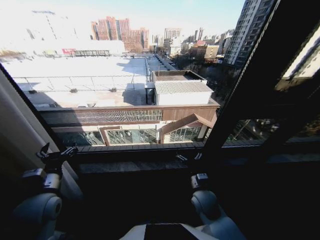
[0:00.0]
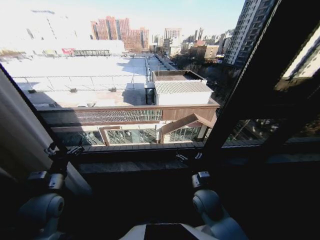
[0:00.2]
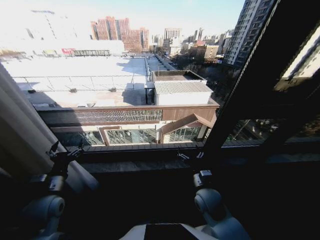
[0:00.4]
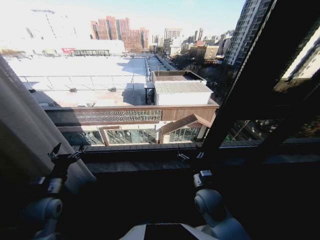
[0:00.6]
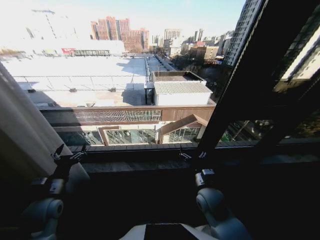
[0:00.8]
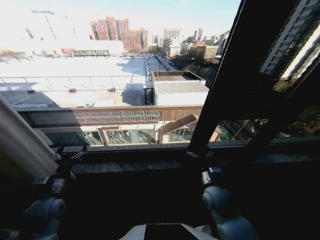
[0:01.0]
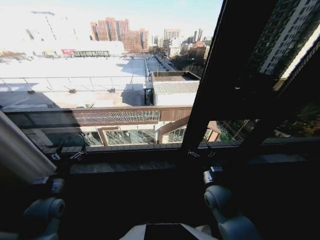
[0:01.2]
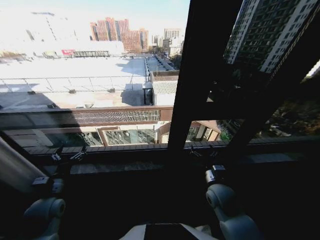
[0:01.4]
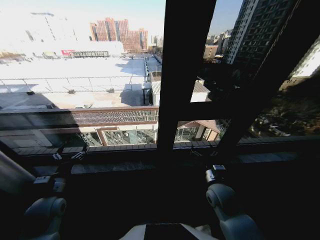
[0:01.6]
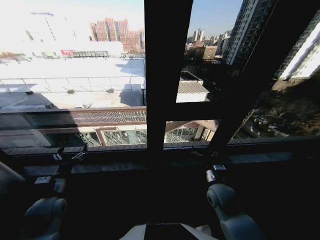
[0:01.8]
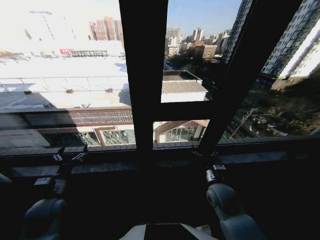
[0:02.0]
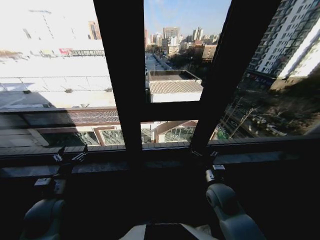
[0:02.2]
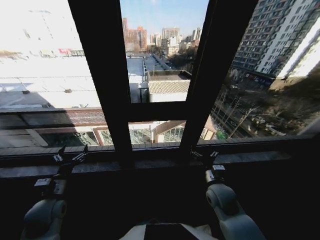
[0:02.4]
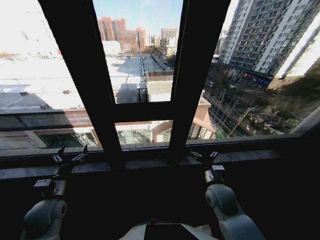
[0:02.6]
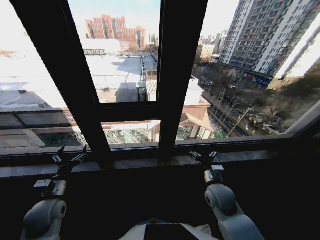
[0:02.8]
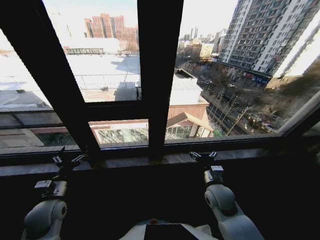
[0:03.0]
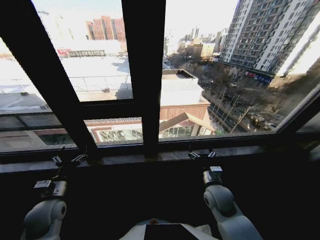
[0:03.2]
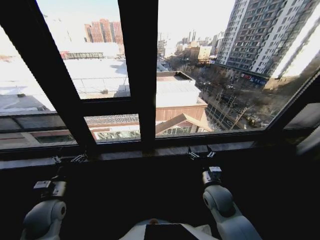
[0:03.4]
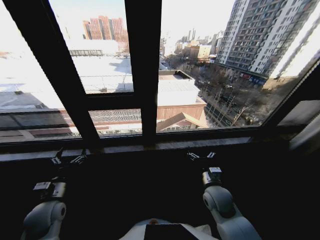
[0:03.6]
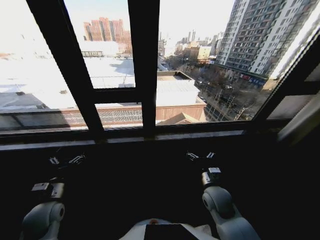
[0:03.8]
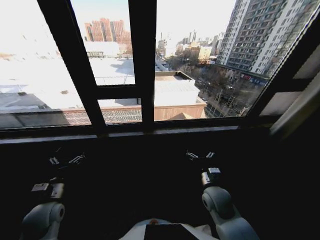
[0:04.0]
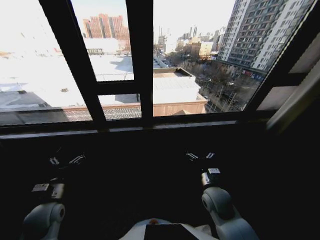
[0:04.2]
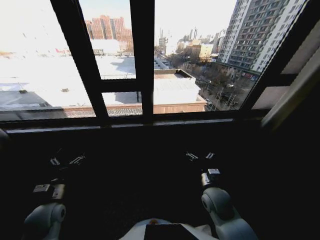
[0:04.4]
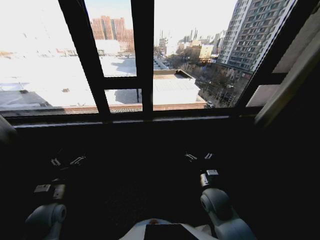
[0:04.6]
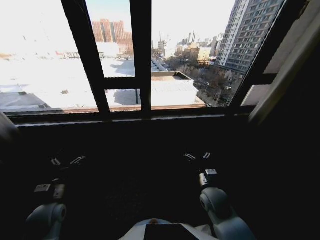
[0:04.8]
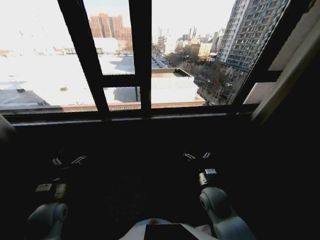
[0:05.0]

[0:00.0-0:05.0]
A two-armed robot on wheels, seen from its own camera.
Task of the whole recording: Open the curtains by pulling them apart, changing their state from closed to fully open.
0:00.0 to 0:01.6: The left gripper goes about 5 cm downward, while the right gripper is displaced to the right by some 5 cm.

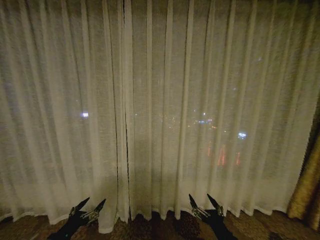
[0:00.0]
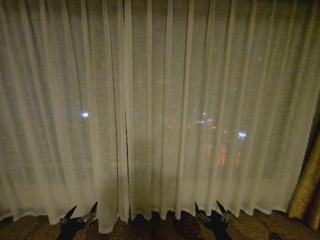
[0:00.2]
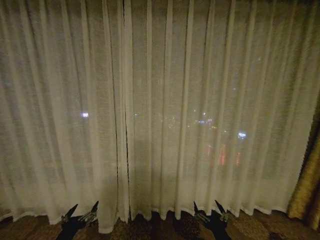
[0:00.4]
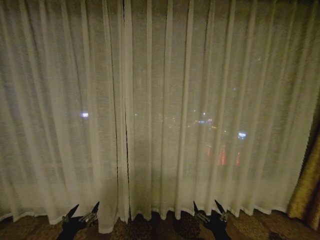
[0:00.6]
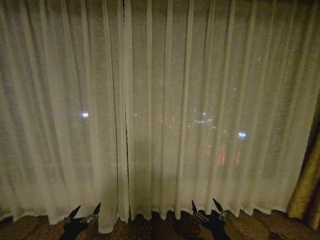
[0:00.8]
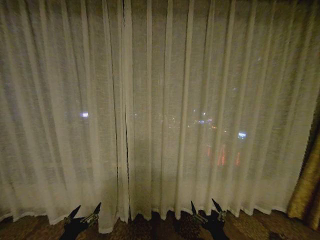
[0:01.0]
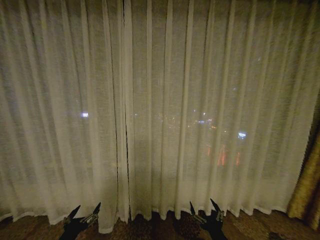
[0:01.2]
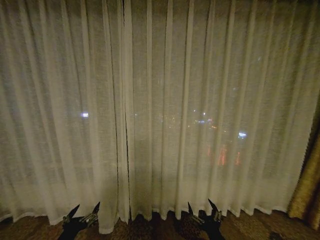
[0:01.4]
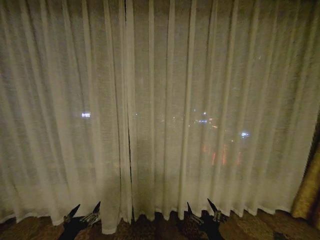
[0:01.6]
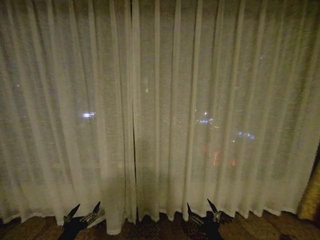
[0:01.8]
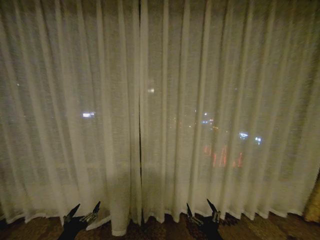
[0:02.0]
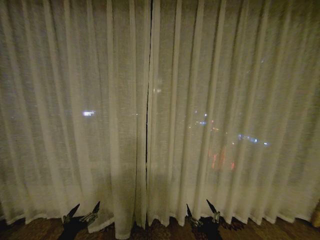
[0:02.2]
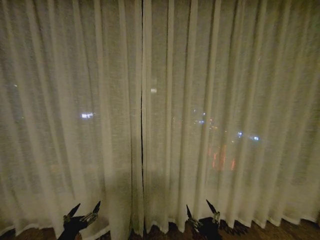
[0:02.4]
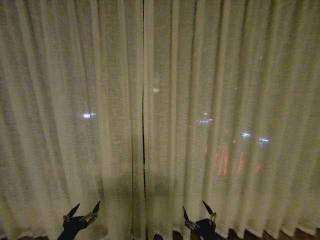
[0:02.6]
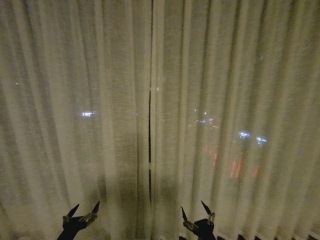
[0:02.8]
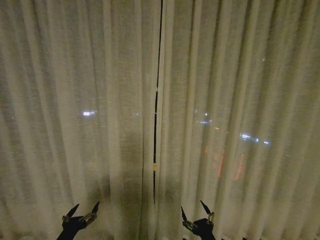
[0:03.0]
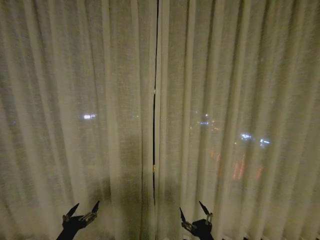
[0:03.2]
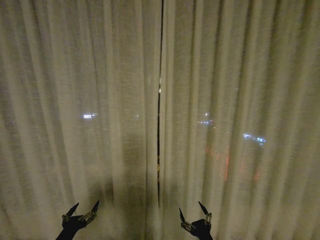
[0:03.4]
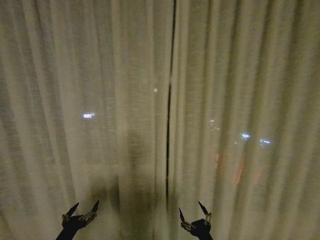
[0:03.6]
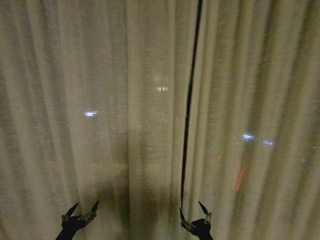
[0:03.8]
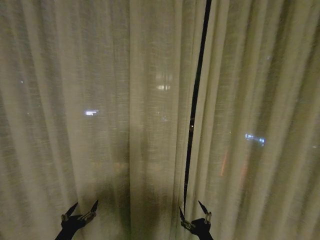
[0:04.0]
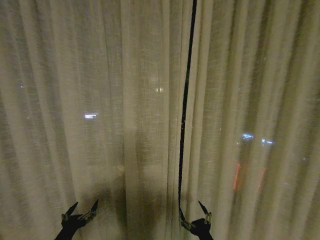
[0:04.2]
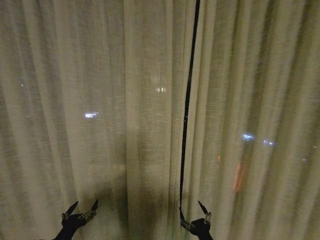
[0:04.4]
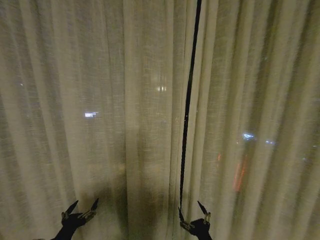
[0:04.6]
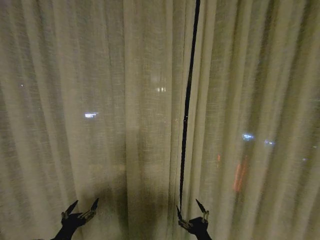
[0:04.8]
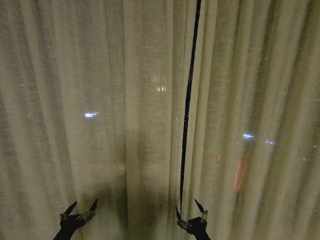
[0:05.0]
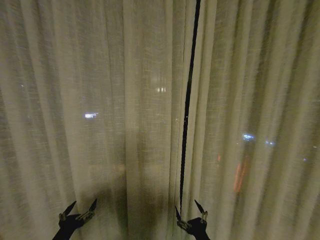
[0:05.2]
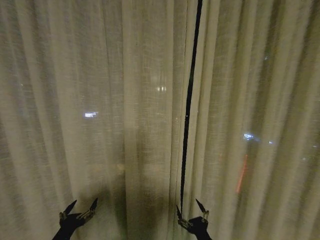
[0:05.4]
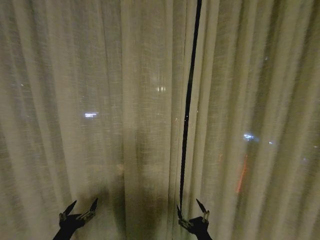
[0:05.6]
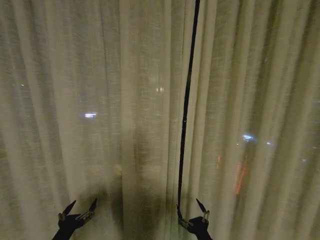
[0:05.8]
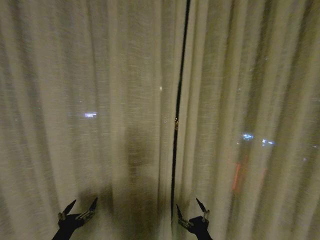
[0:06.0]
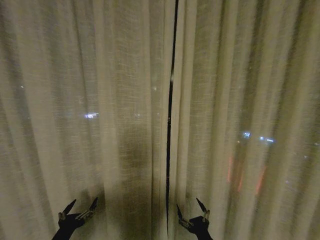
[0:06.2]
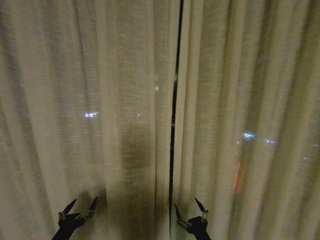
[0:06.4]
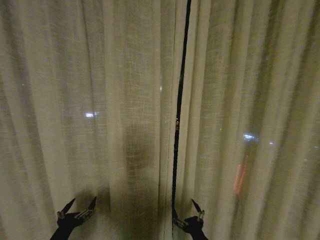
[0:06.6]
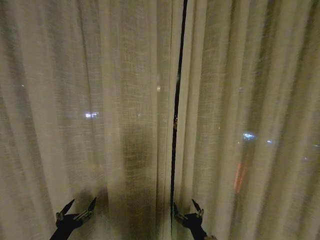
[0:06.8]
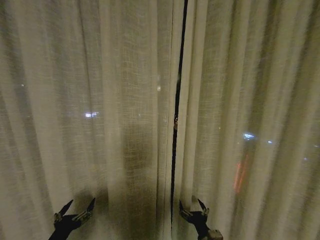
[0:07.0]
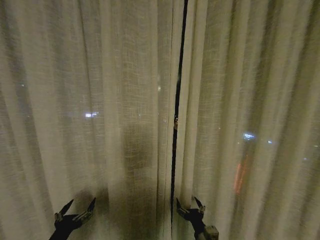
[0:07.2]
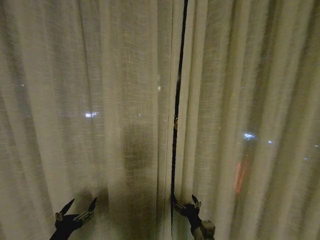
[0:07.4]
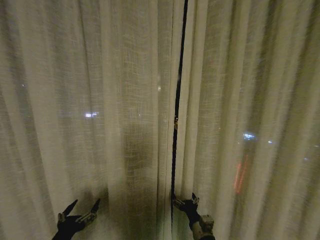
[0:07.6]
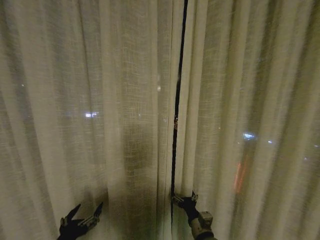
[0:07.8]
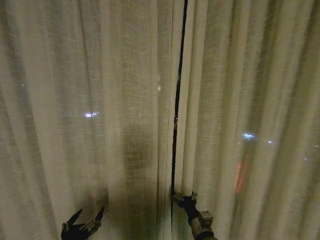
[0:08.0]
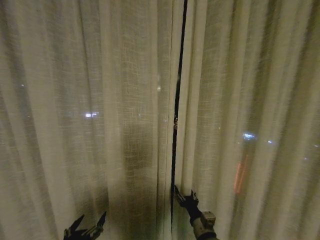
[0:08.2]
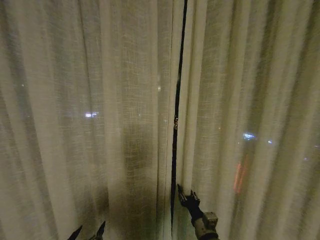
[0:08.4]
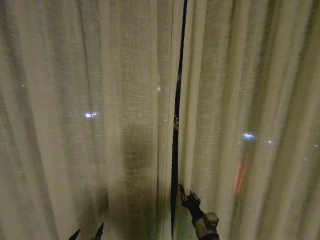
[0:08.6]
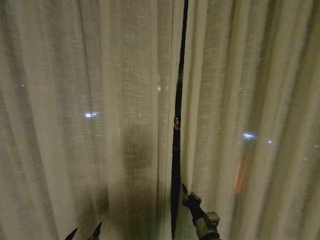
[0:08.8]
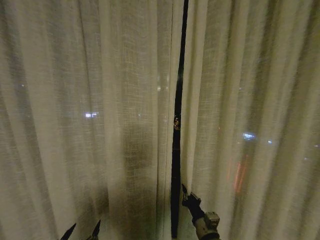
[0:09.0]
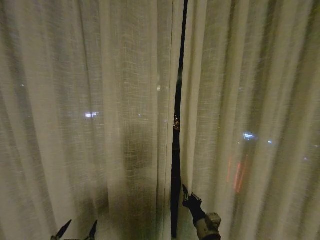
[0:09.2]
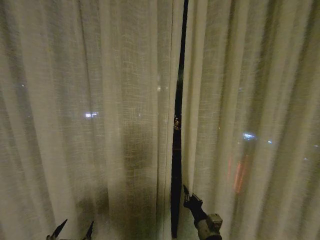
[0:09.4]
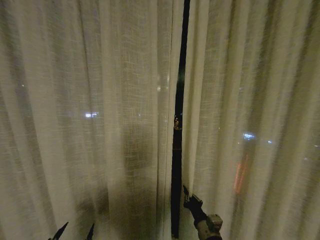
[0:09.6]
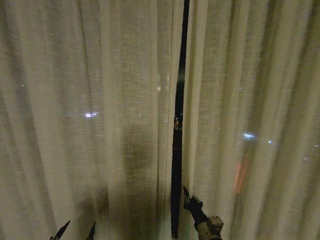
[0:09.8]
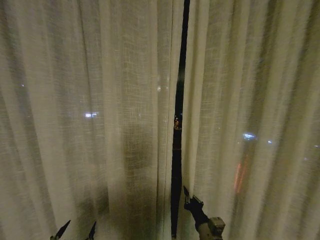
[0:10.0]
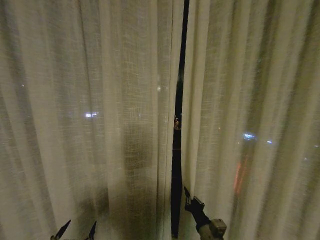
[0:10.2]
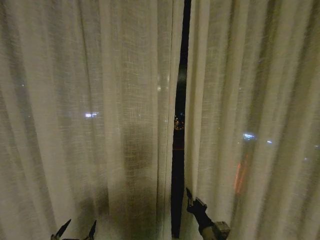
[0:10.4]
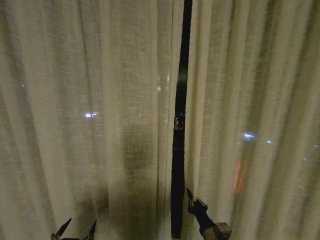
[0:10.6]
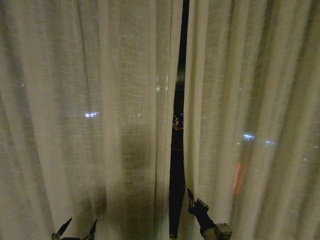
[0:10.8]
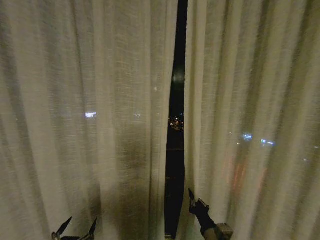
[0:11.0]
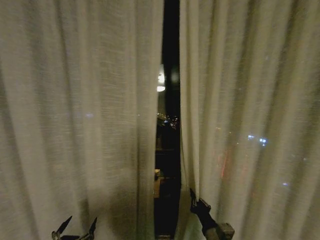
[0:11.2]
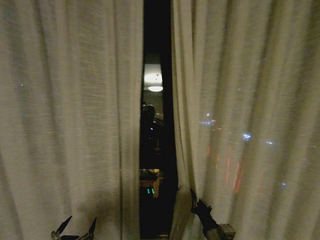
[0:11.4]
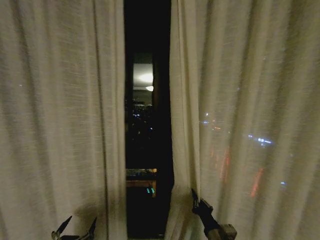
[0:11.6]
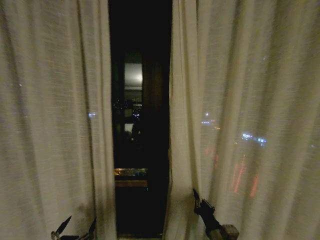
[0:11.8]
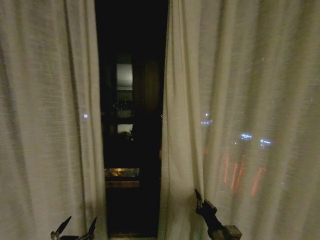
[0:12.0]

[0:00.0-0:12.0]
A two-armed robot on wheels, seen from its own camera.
Task of the whole recording: Open the curtains by pulling them apart, changing their state from closed to fully open.
0:03.0 to 0:04.4: The two grippers keep their place.
0:04.4 to 0:06.0: There are only small adjustments of the grippers.
0:06.0 to 0:07.6: The left gripper changes place by approximately 5 cm; the right gripper is displaced forward by approximately 10 cm.
0:07.6 to 0:09.0: The left gripper ends up some 5 cm from where it was; the right gripper closes.
0:09.0 to 0:10.4: The grippers make only small movements.

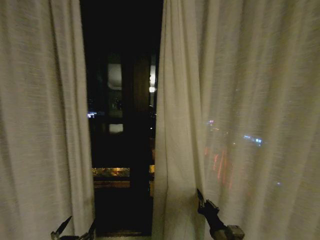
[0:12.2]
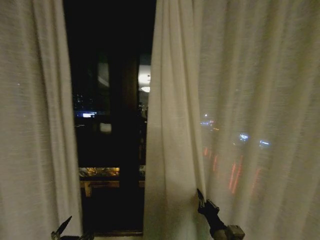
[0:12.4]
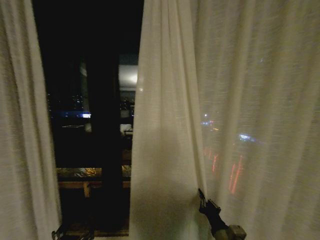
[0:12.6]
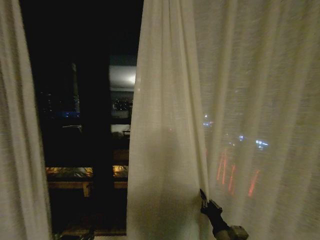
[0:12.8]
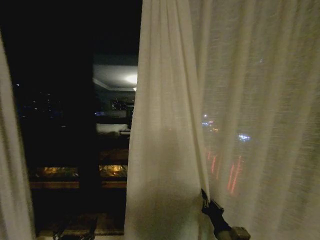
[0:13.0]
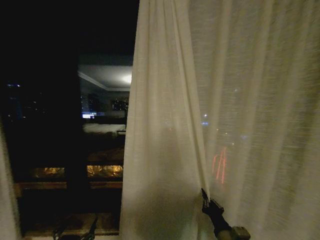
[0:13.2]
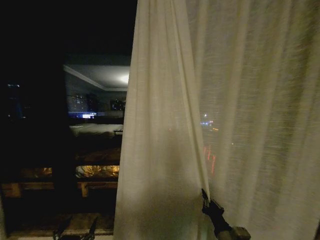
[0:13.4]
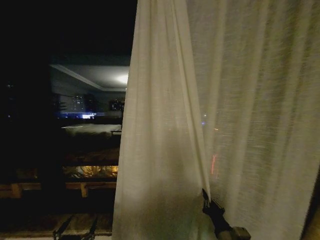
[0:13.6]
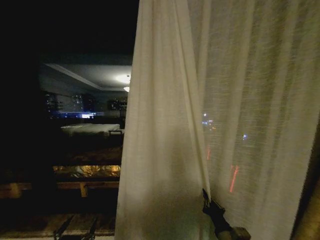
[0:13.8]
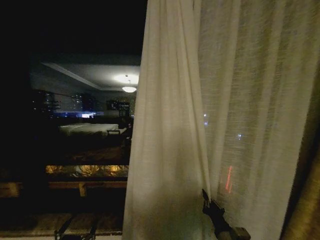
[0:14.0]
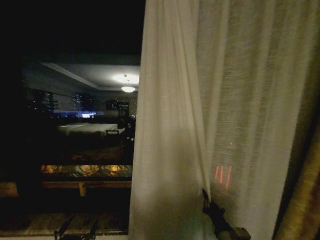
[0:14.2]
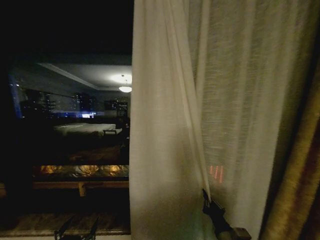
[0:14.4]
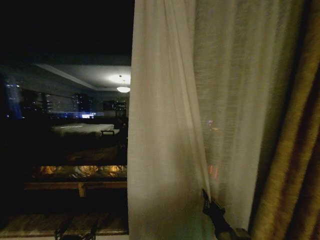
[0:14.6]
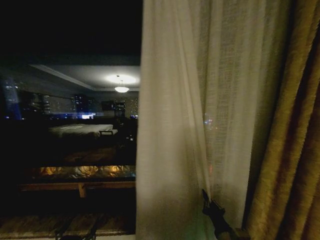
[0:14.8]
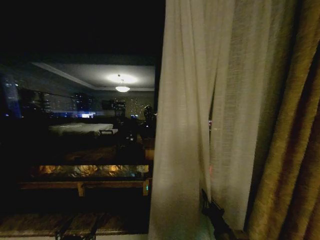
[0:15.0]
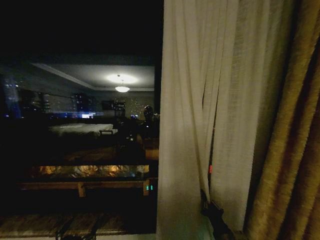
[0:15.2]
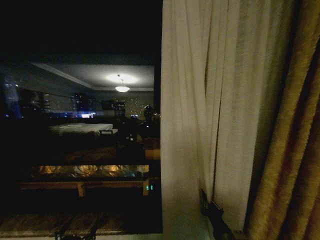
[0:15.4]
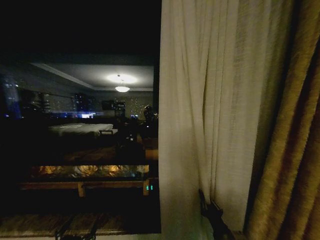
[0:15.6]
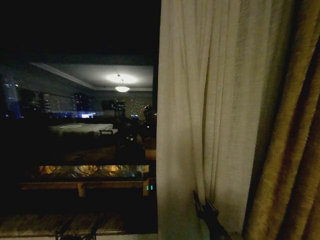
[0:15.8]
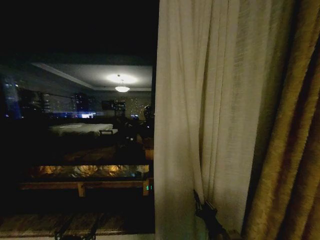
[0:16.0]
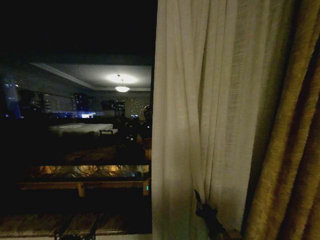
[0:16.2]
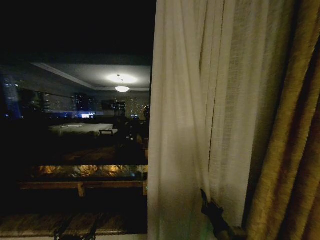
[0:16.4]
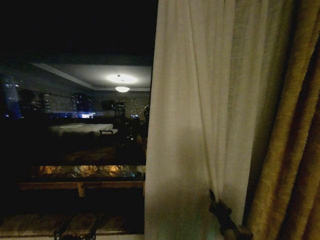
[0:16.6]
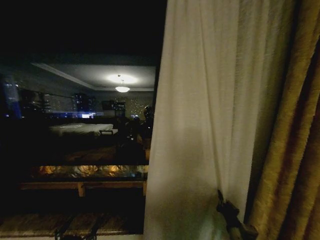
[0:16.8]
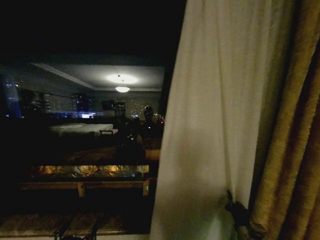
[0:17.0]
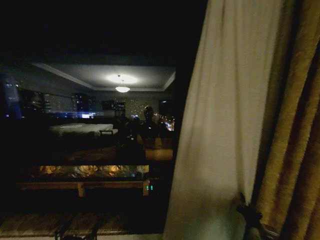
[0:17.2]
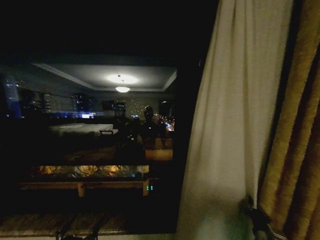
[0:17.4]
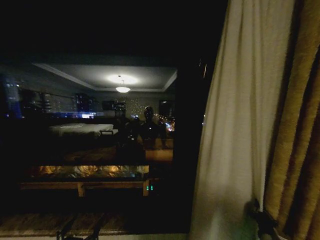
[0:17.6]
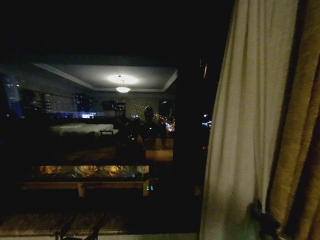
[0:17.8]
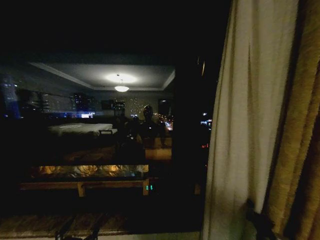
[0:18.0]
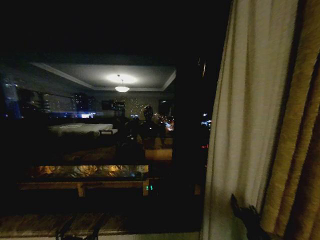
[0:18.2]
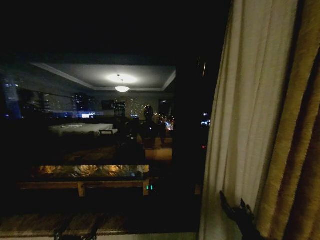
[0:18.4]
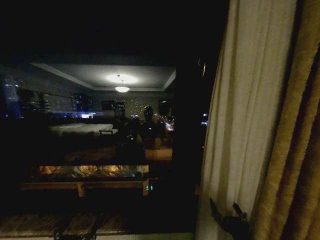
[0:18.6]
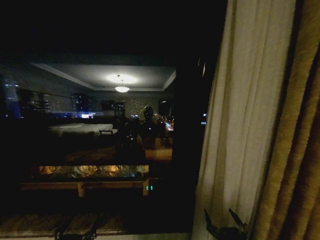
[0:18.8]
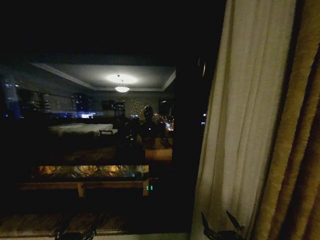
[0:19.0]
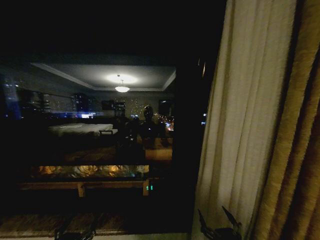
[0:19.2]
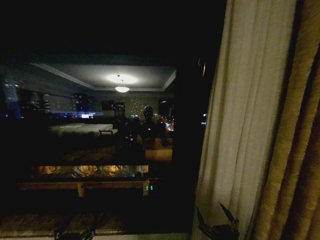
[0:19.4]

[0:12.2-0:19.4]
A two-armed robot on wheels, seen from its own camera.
Task of the whole recording: Open the curtains by pulling them apart, changing their state from closed to fully open.
0:15.0 to 0:16.6: The grippers move only a little.
0:16.6 to 0:18.0: The right gripper moves to the right, some 10 cm.
0:18.0 to 0:19.4: The right gripper shifts approximately 20 cm to the left, backward and upward, and opens its fingers.
